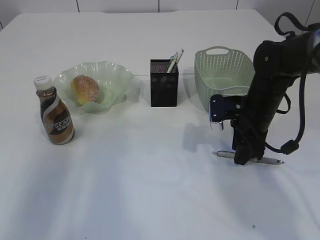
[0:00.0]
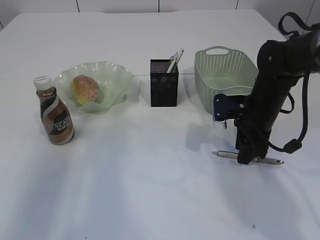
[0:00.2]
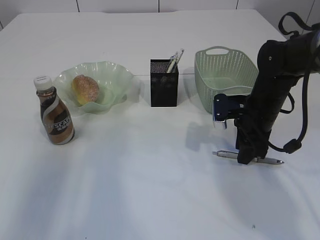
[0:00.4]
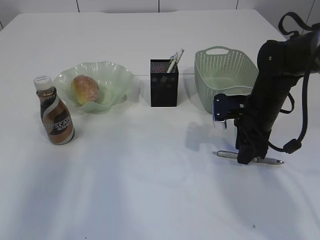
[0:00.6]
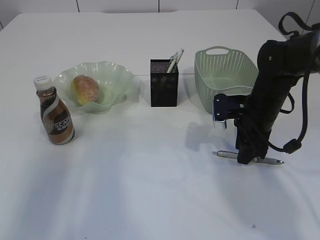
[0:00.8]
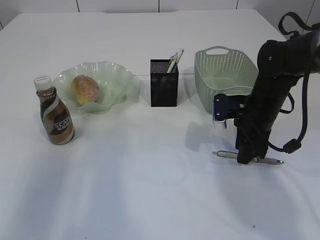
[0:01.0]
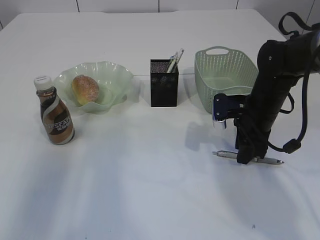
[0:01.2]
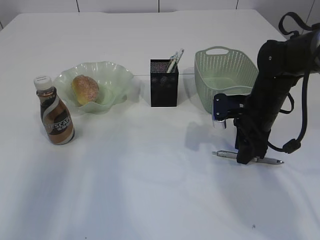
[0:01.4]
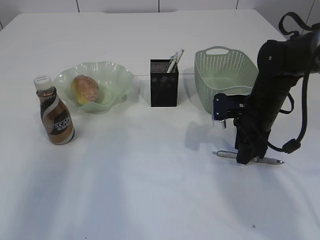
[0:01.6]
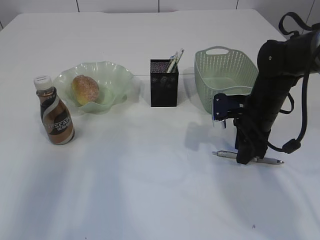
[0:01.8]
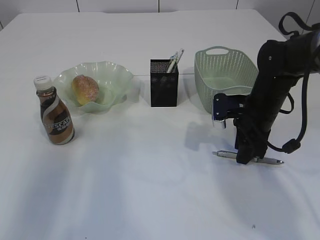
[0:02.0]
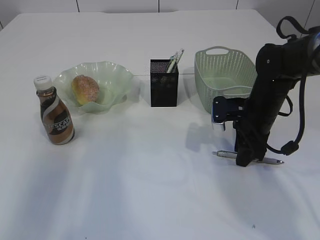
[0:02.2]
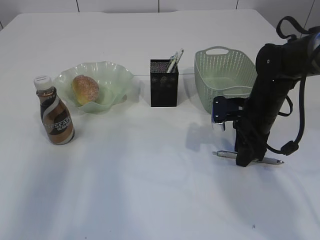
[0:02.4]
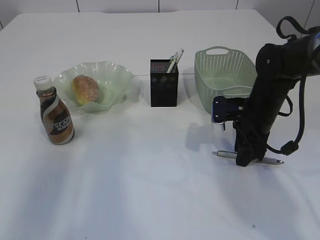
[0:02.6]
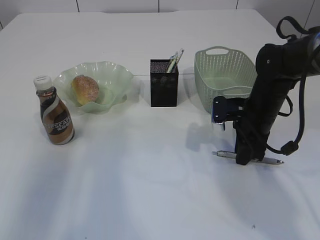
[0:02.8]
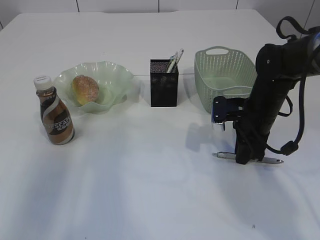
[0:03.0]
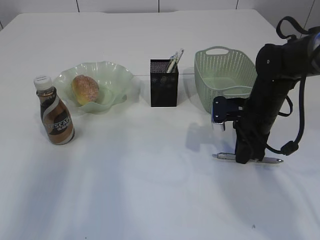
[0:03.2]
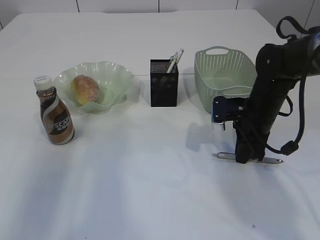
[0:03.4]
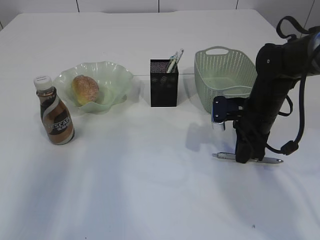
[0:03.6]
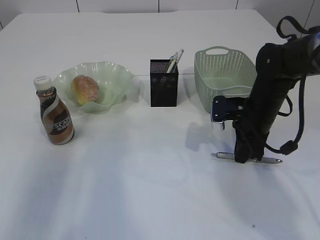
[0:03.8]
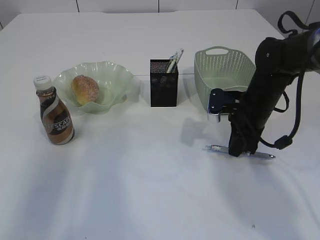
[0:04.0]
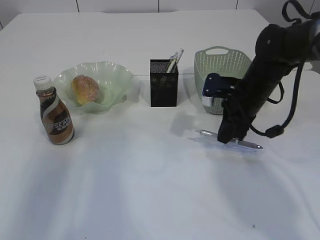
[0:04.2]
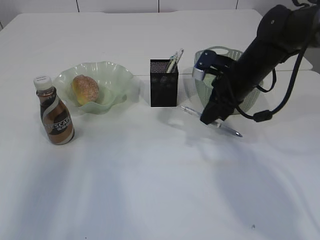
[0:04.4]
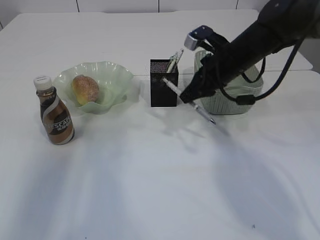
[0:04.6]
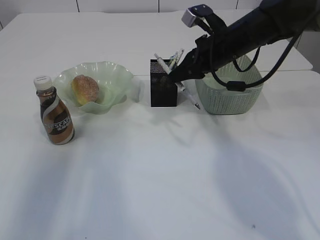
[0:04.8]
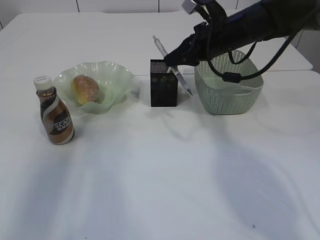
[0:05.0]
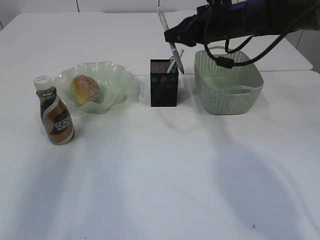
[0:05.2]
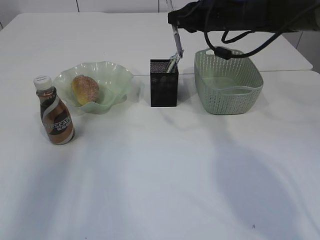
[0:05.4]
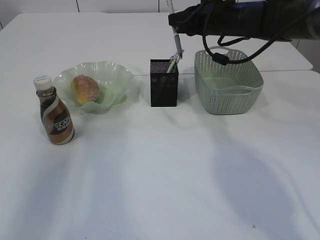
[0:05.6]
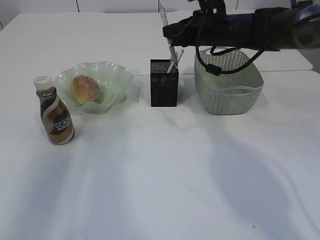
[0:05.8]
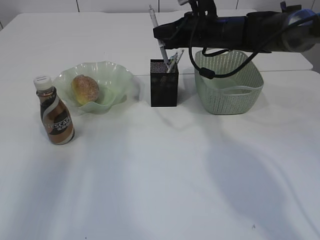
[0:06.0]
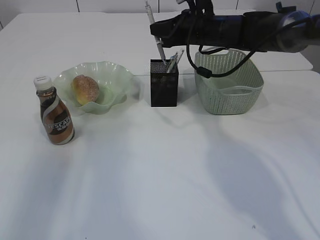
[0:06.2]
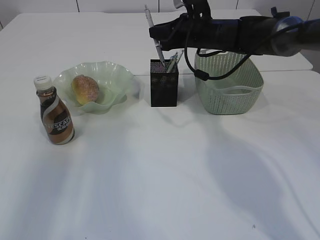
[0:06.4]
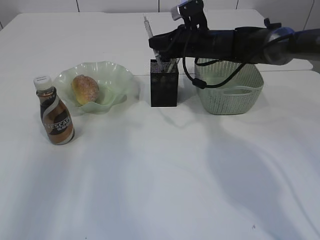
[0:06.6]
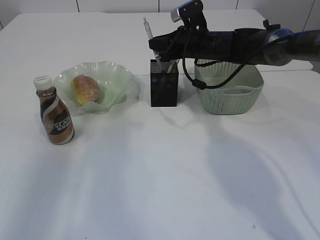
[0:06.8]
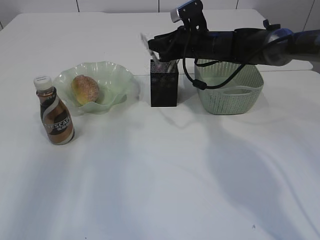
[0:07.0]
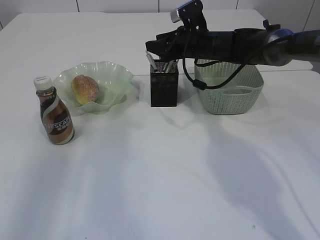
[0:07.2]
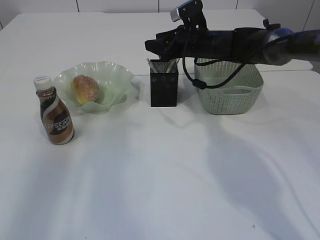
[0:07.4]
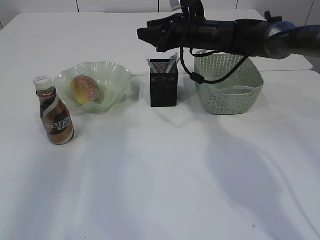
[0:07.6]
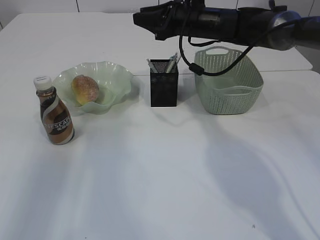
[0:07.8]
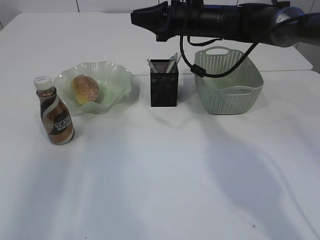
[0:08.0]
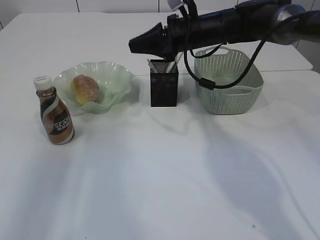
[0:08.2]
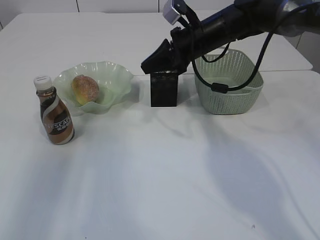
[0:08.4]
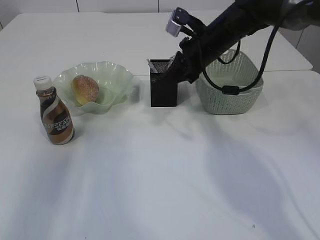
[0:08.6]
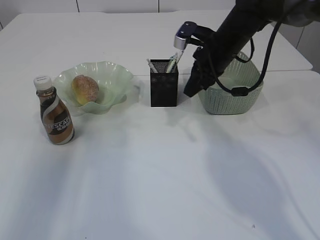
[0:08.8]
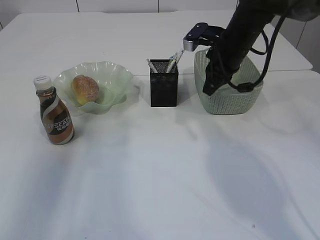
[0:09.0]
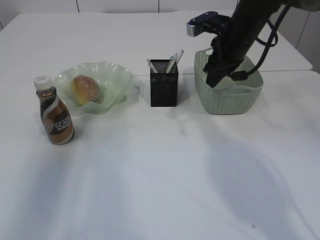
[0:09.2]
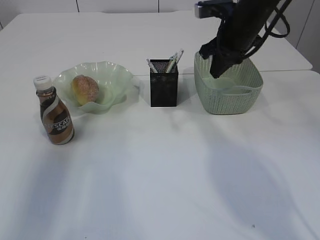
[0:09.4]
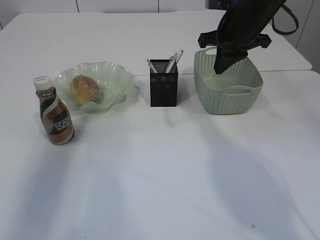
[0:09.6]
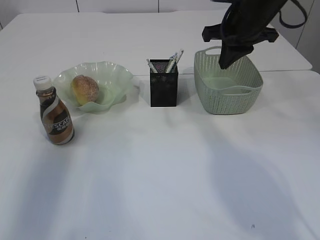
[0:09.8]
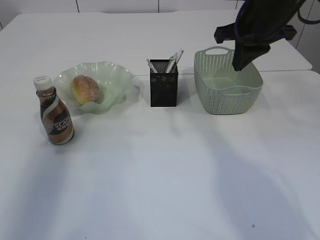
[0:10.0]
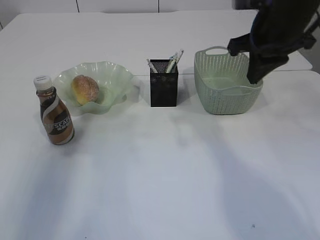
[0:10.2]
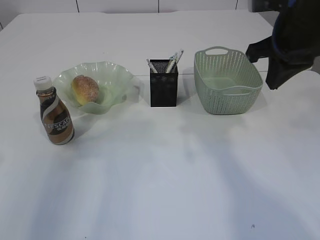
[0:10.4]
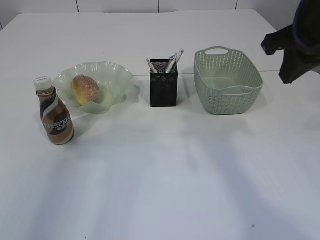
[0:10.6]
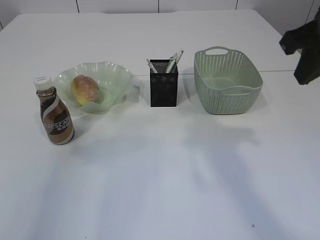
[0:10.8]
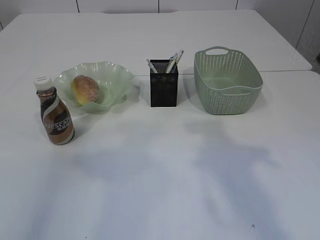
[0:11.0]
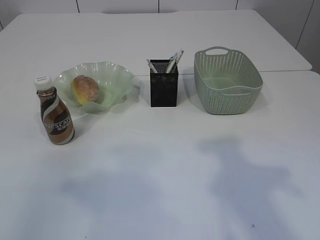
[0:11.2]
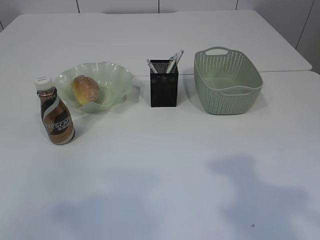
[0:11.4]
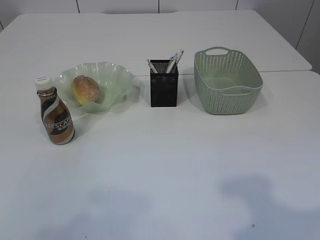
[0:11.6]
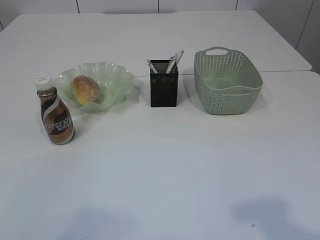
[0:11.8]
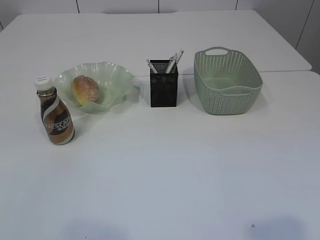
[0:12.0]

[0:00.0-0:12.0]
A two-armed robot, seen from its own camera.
Step, 0:00.0 to 0:04.4: Pick up the pen with right arm.
Step, 0:04.6 to 0:08.0: Place the pen into the pen holder.
0:00.0 to 0:03.0: The two grippers keep their place.
0:03.0 to 0:04.4: The right gripper heads upward, covering approximately 5 cm.
0:04.4 to 0:06.0: The right gripper shifts roughly 10 cm forward, upward and to the left.
0:06.0 to 0:07.6: The right gripper opens its fingers.
0:07.6 to 0:09.0: The right gripper shifts about 10 cm to the right and backward, and closes.
0:09.0 to 0:10.4: The right gripper goes some 15 cm backward and upward; the left gripper moves approximately 5 cm.
0:10.4 to 0:12.0: Both grippers move backward, approximately 30 cm.

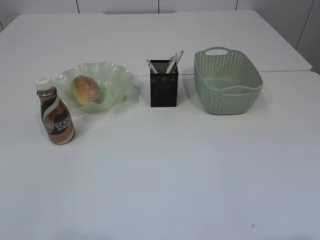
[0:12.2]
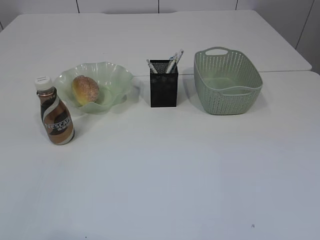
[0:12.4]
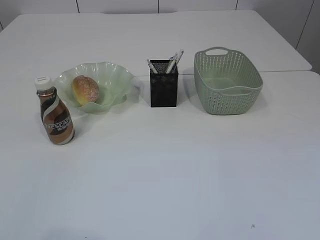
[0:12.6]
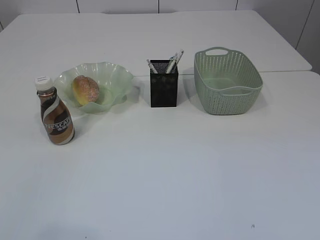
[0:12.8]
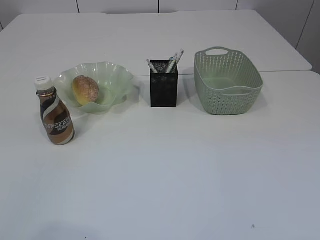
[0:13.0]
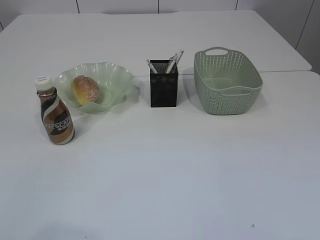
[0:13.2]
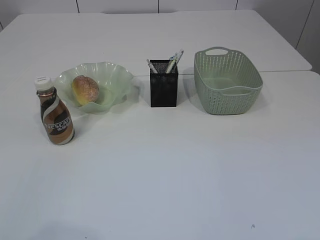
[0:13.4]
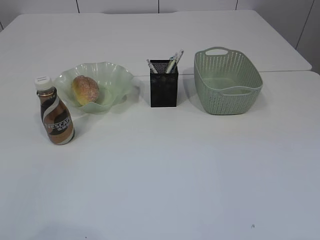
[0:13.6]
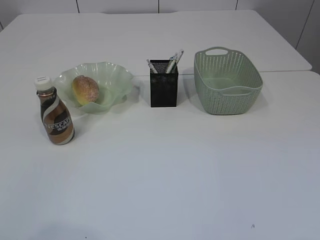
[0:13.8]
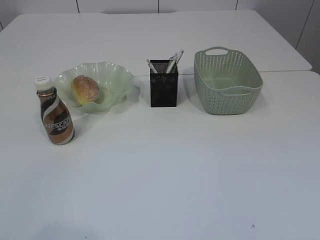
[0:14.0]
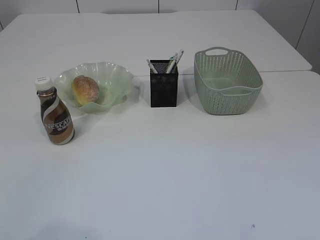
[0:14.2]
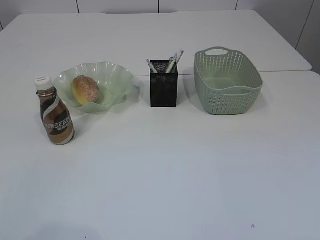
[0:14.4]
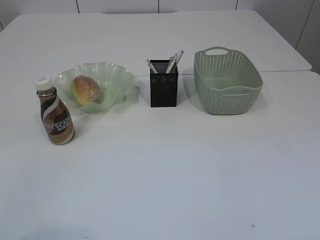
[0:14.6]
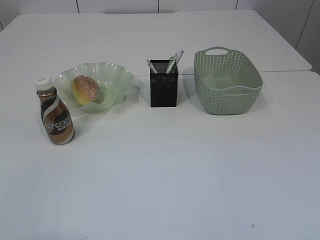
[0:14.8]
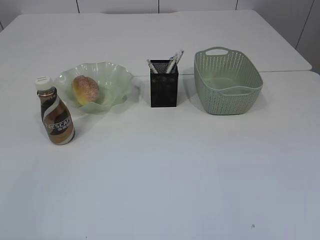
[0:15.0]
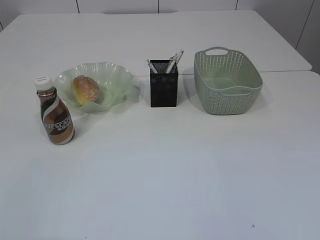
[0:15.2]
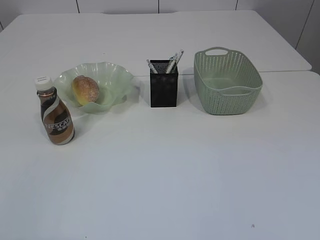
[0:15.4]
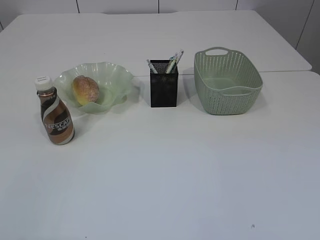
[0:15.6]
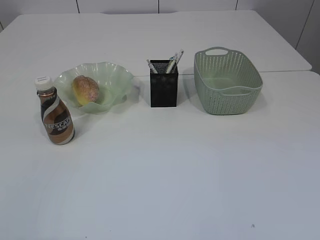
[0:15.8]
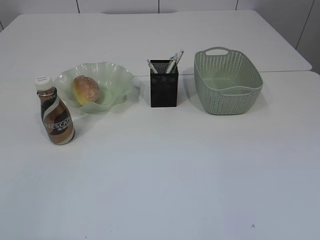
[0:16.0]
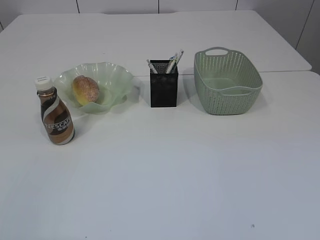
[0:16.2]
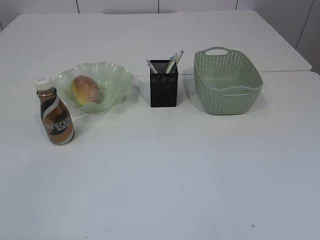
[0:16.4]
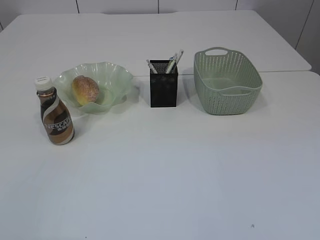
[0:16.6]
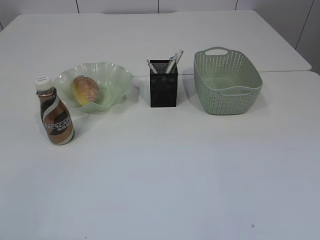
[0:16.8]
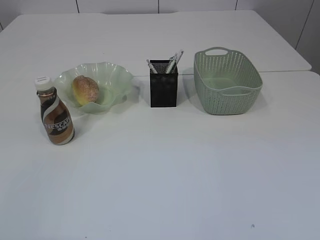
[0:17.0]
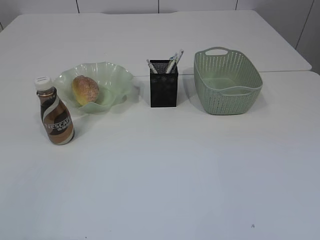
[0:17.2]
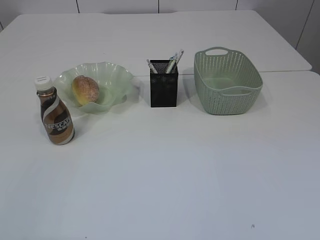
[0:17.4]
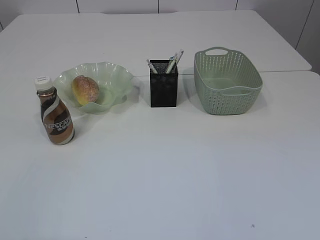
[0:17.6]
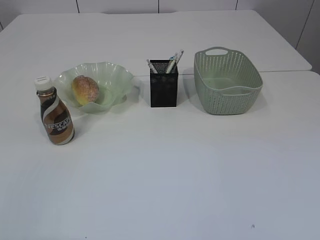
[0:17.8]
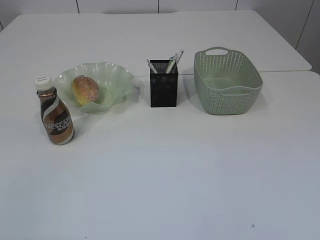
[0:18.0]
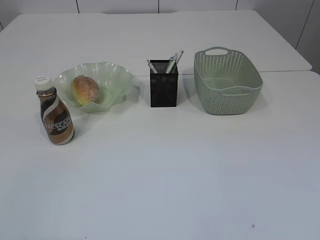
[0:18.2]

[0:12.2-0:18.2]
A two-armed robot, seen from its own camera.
0:15.2 to 0:18.2: Both grippers stay put.
